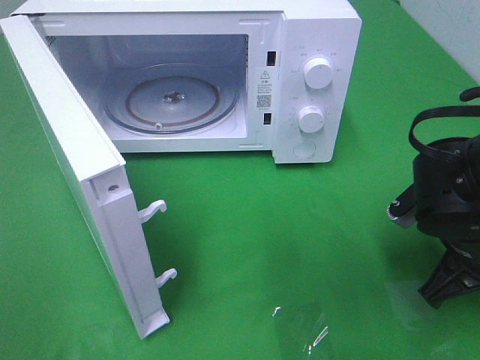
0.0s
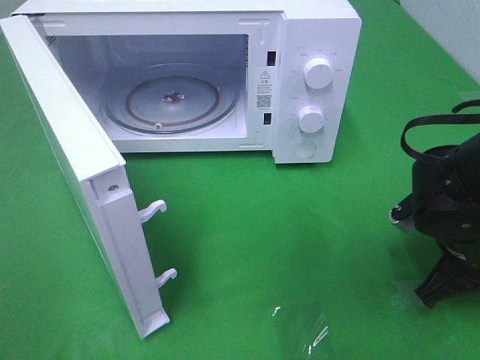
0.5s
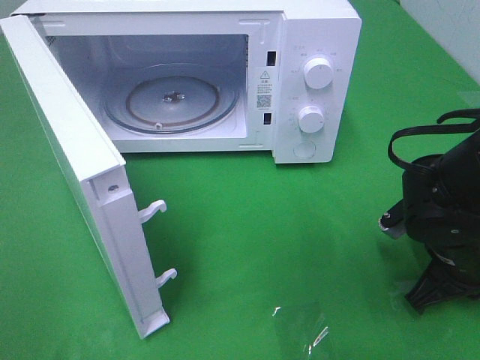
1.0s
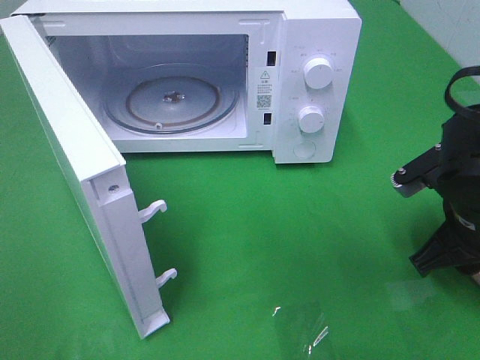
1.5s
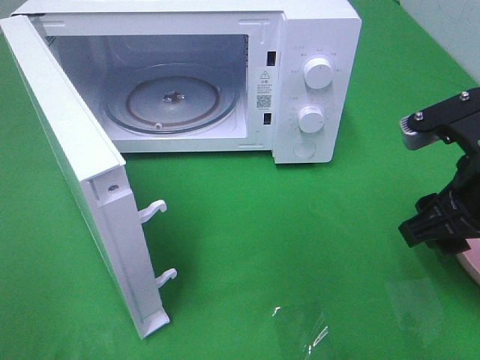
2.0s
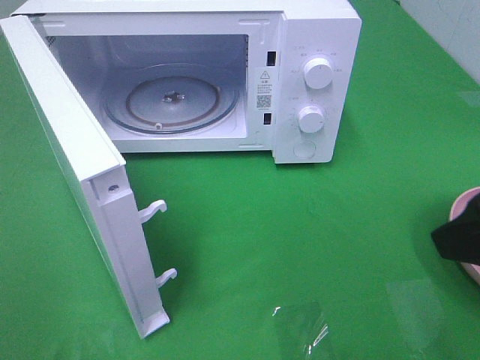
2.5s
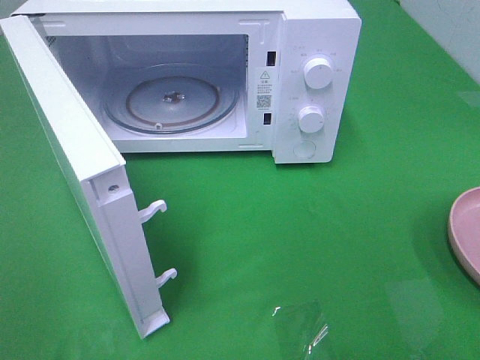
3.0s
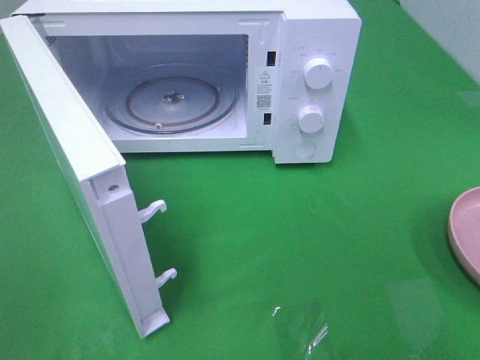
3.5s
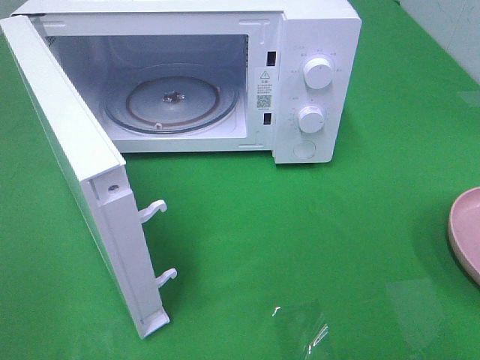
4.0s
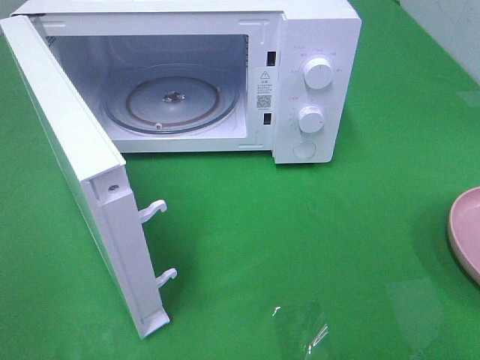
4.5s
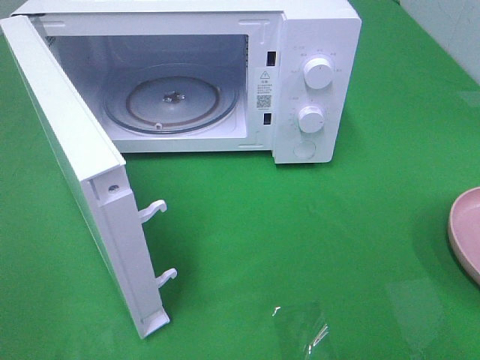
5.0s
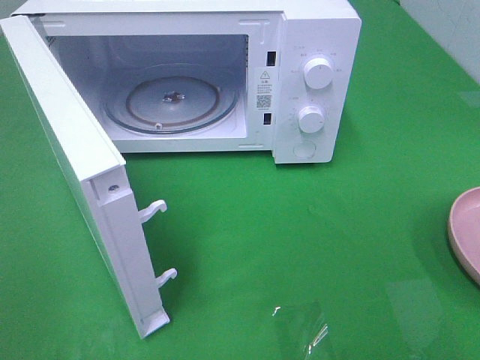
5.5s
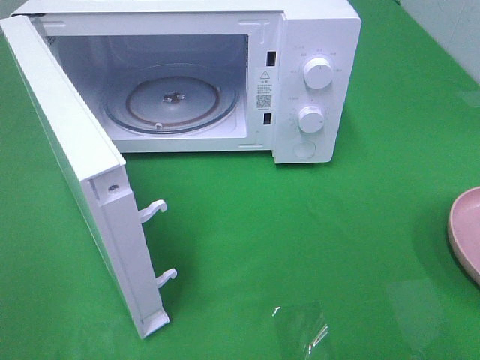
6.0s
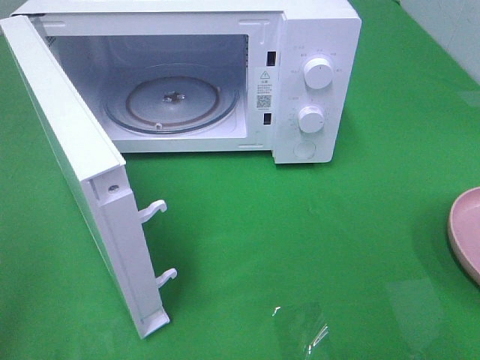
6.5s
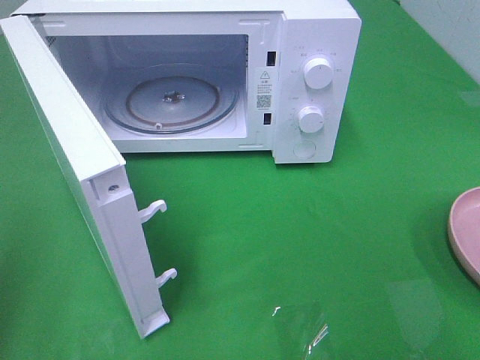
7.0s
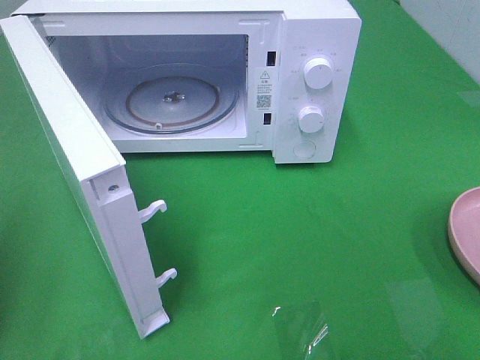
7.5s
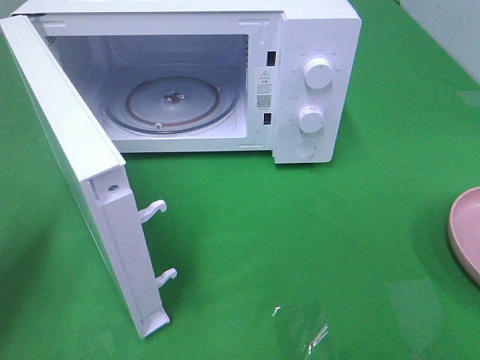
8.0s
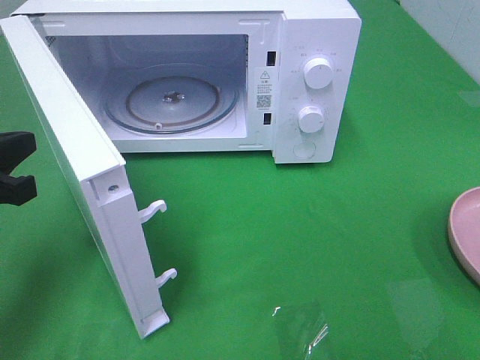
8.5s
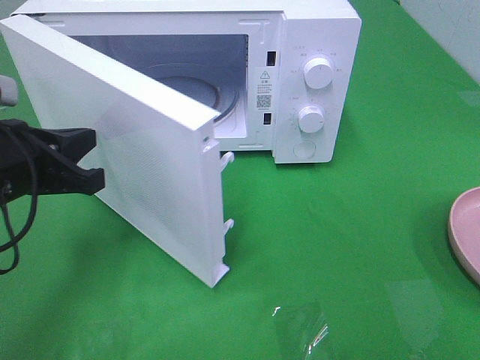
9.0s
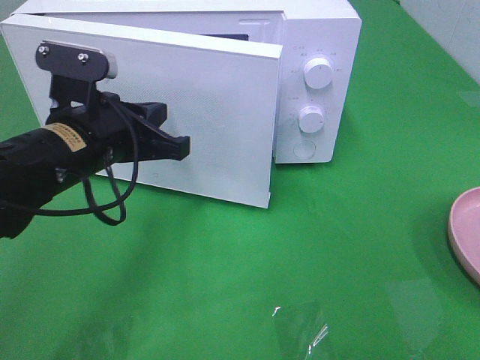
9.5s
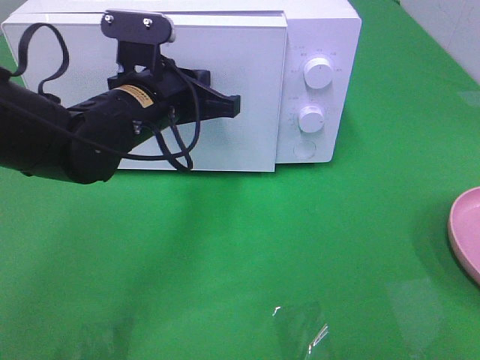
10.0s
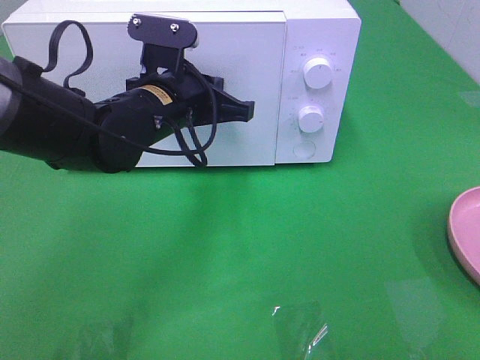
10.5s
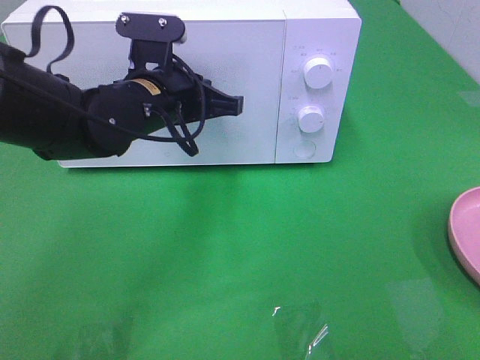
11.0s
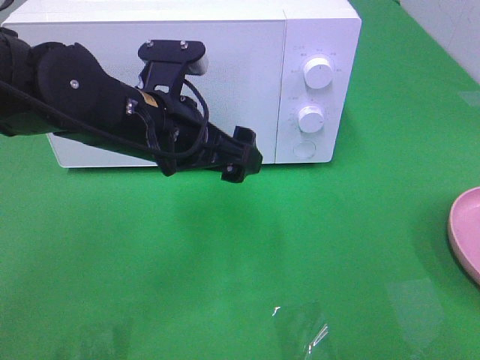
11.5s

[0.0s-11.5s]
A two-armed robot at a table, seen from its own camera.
Task of the whole recording: Heat the burger.
Step, 2.0s to 10.5s: Left hand: close the microwave door.
0.0s to 2.0s: The right gripper heads upward, covering approximately 10 cm, and opens its fingers.
2.0s to 4.0s: The right gripper goes approximately 20 cm backward and to the right.
4.0s to 6.0s: Both grippers stay put.
7.5s to 9.5s: The left gripper shifts roughly 25 cm to the right and forward.
9.5s to 11.5s: The left gripper is displaced to the right by approximately 5 cm, and opens.

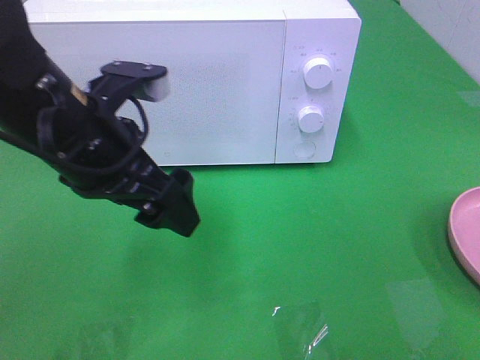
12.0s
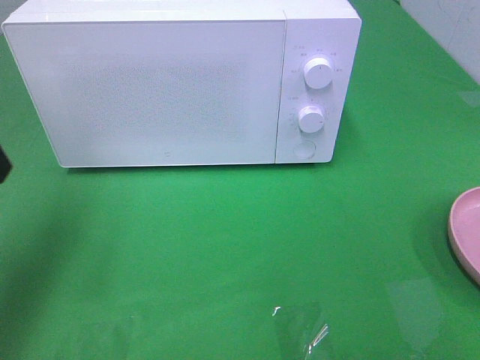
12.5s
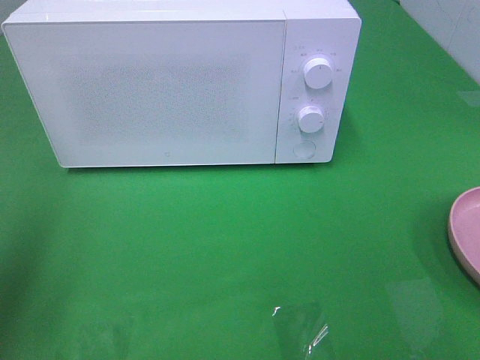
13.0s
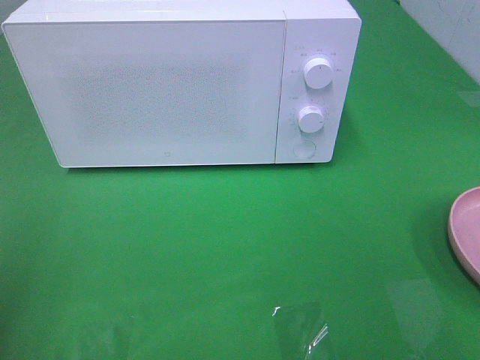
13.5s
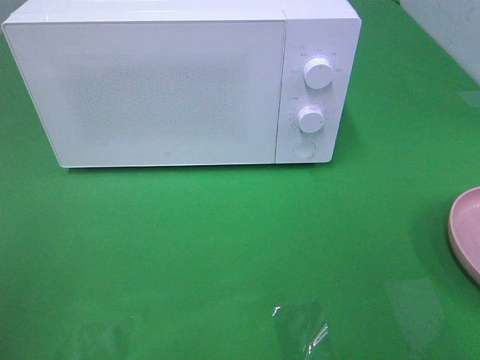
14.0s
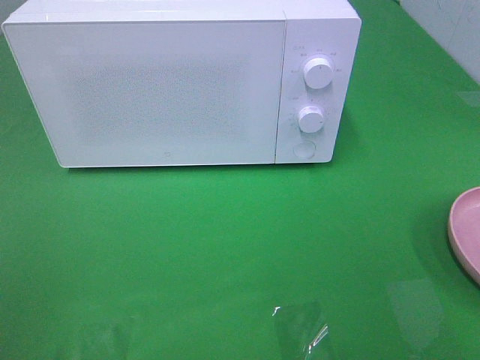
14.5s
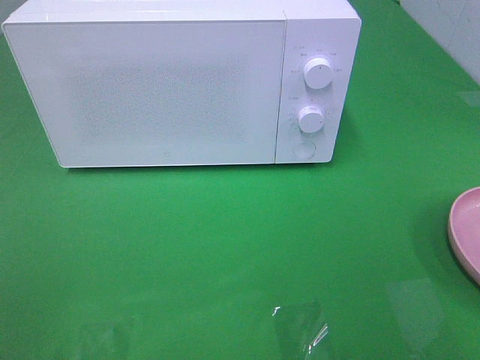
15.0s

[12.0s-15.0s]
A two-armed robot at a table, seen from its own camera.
Task of the whole recording: Heat the burger.
12.0s to 13.5s: The left gripper heads to the left and backward, covering approximately 25 cm.

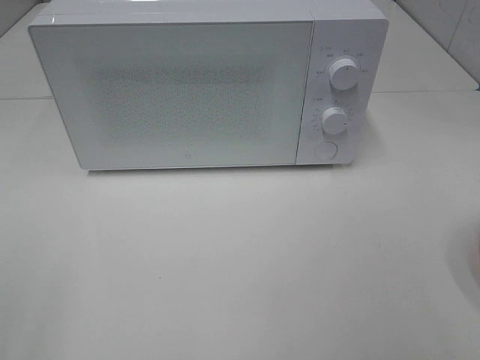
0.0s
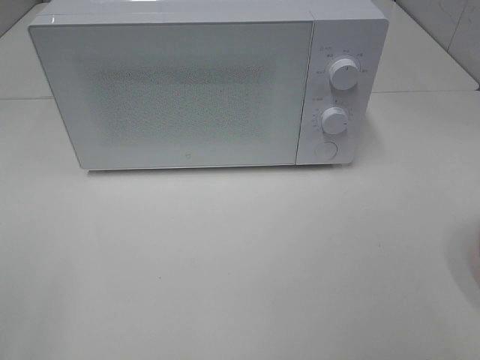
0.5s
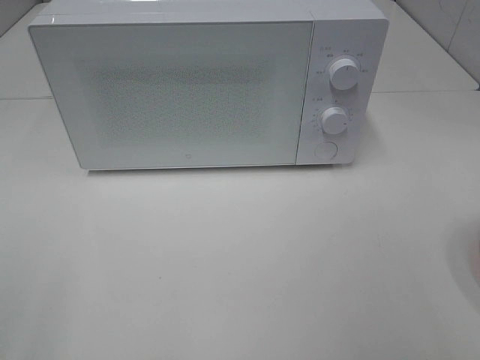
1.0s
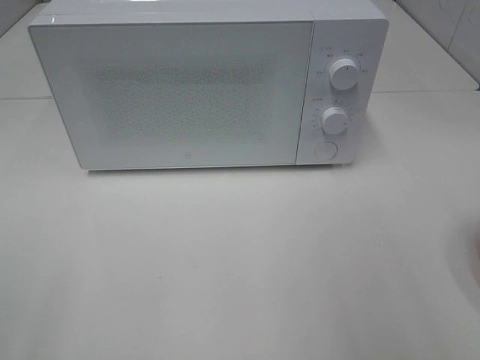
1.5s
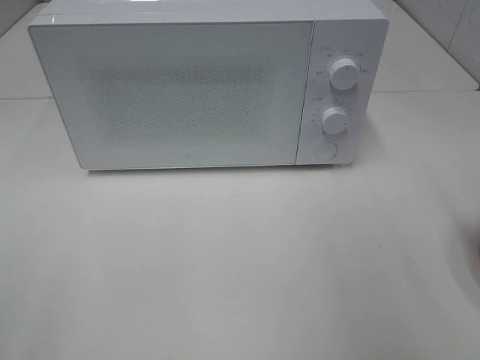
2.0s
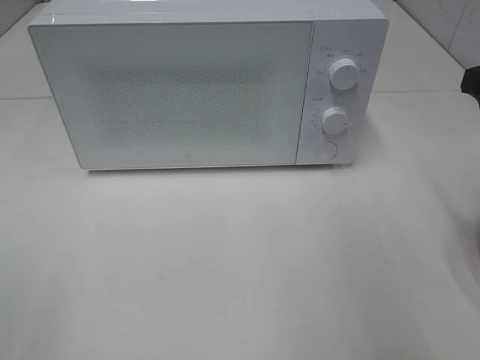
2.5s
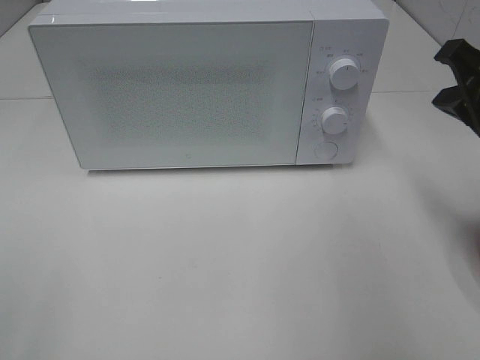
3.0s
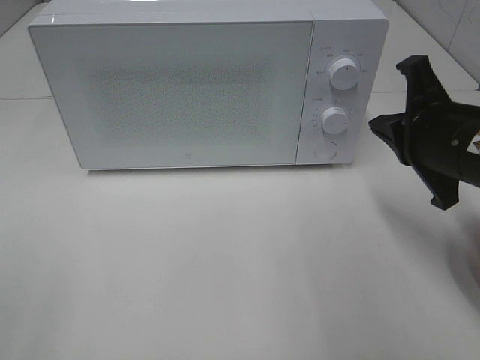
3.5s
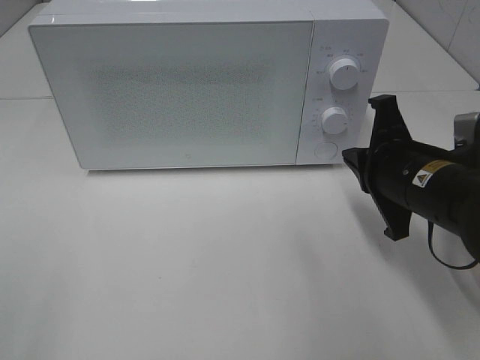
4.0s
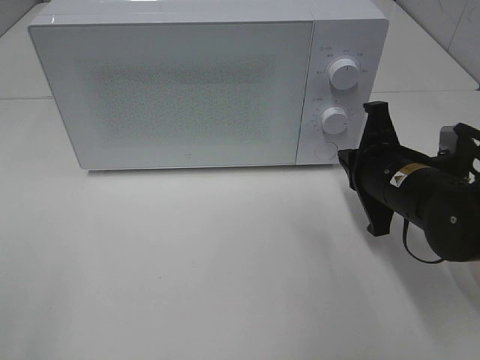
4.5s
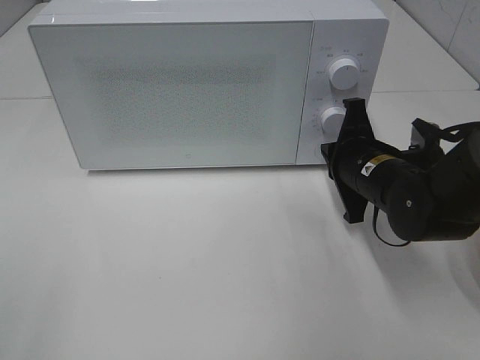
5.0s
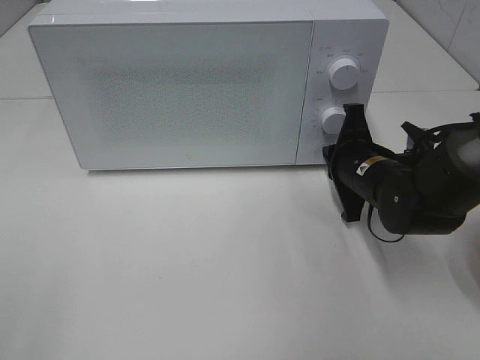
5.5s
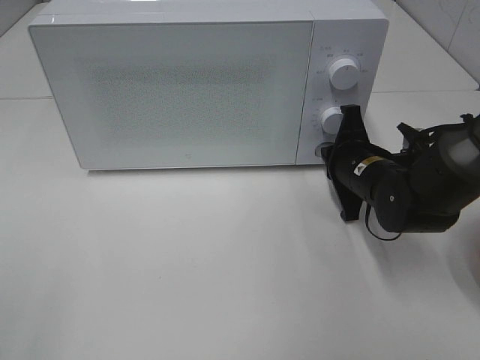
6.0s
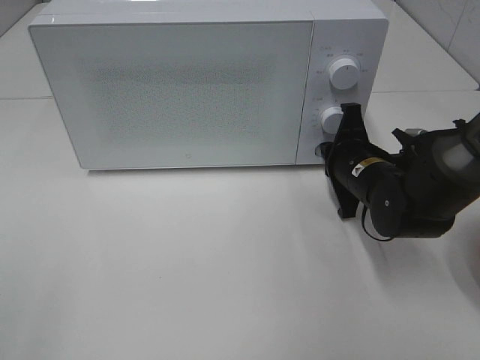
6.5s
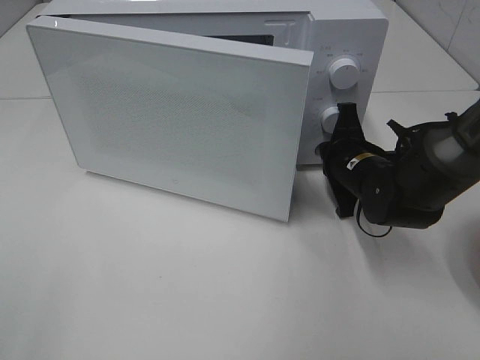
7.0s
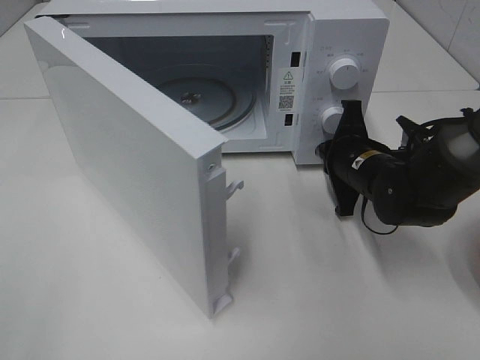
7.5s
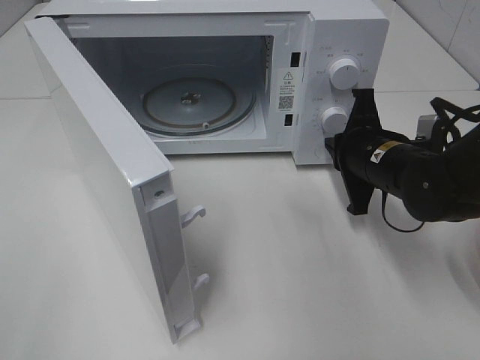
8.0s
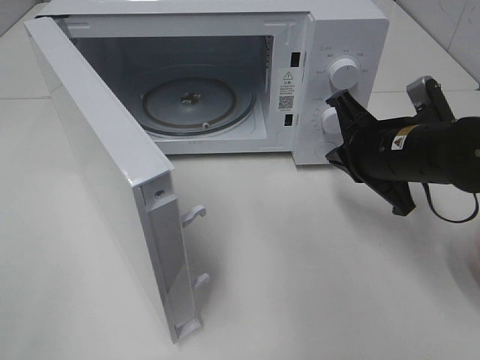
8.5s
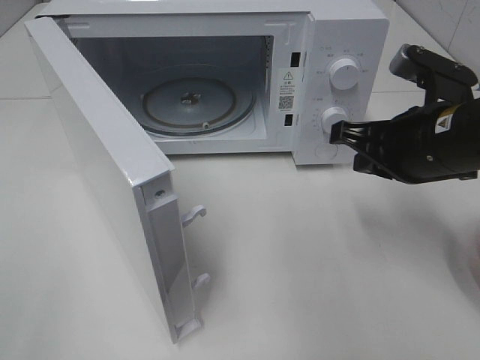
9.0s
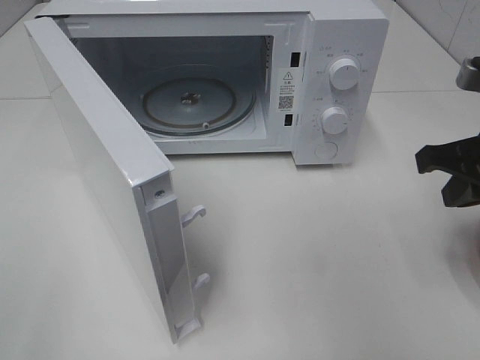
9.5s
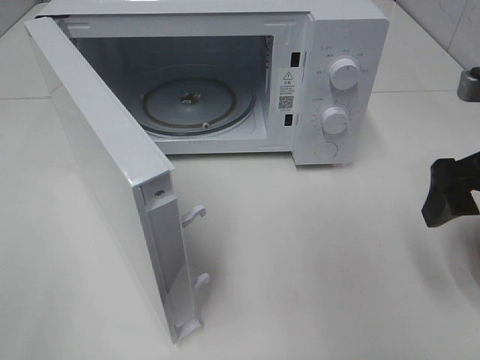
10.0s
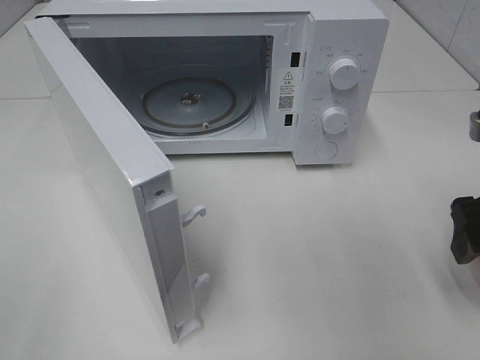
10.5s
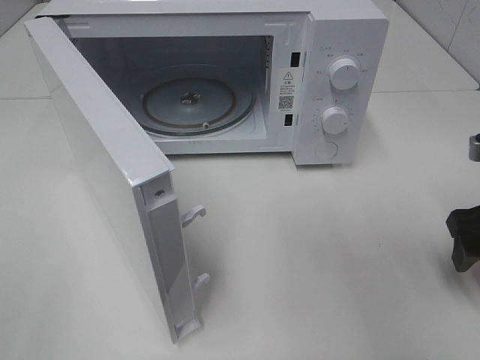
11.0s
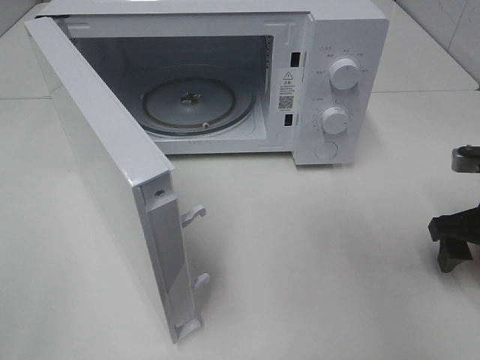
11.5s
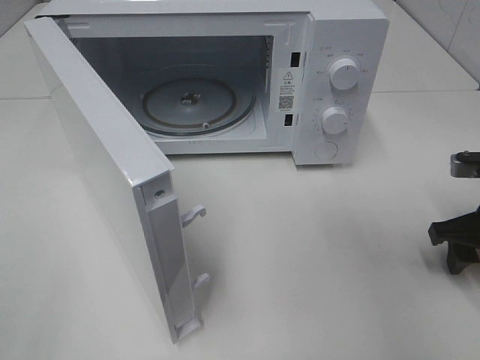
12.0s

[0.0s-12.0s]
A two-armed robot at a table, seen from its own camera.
Task of the whole recording: Heat the burger.
Step, 0.0s to 7.5s: Right hand: press the switch.
2.0s to 4.0s: The right gripper travels downward, to the left and forward by roughly 20 cm, and closes up.
4.0s to 6.0s: The right gripper heads forward and downward, covering approximately 10 cm.
8.0s to 10.0s: The right gripper travels upward, backward and to the right by roughly 15 cm, and opens its fingers.
10.0s to 12.0s: The right gripper is displaced downward by roughly 10 cm.
